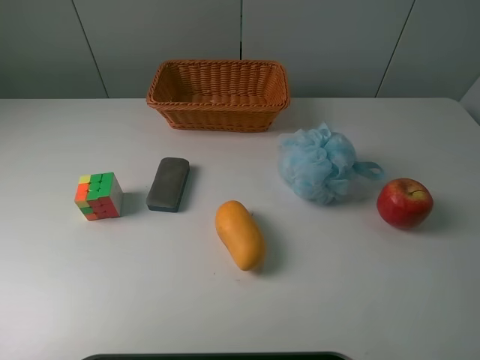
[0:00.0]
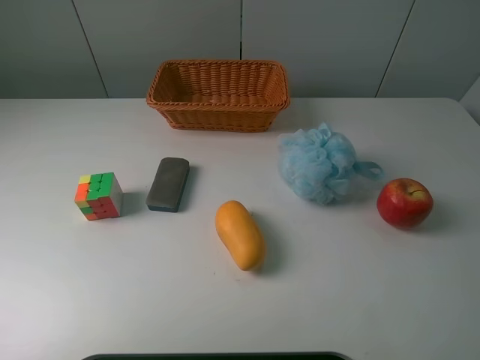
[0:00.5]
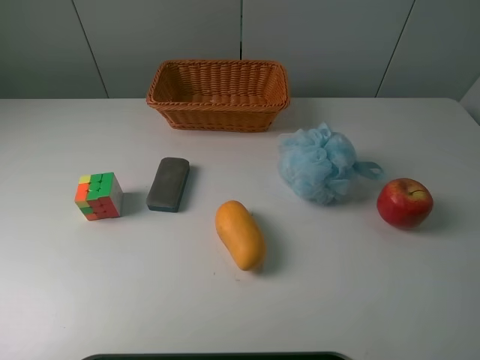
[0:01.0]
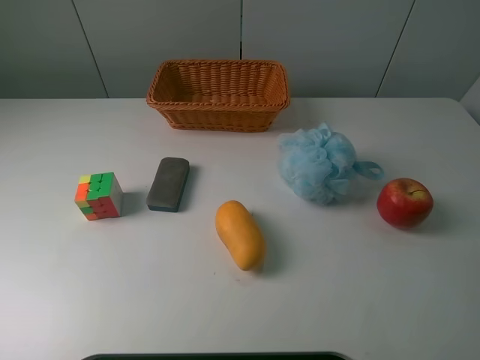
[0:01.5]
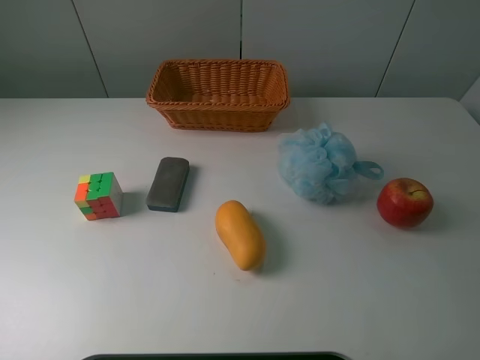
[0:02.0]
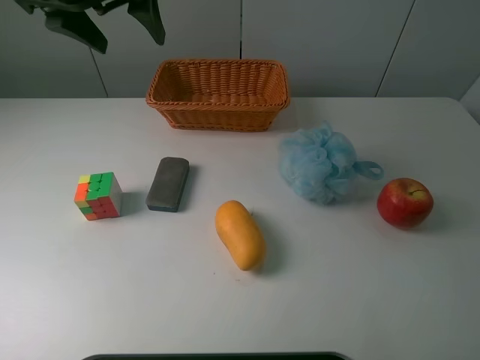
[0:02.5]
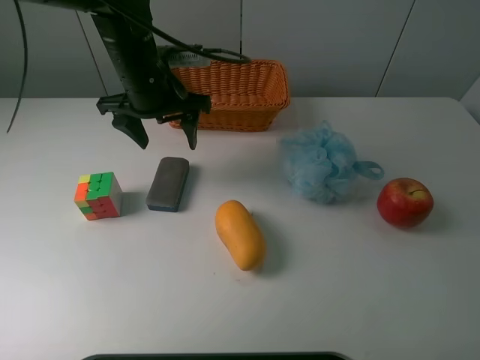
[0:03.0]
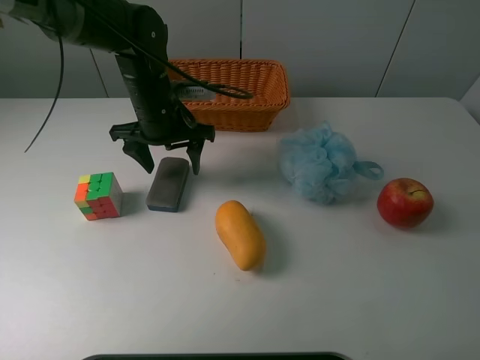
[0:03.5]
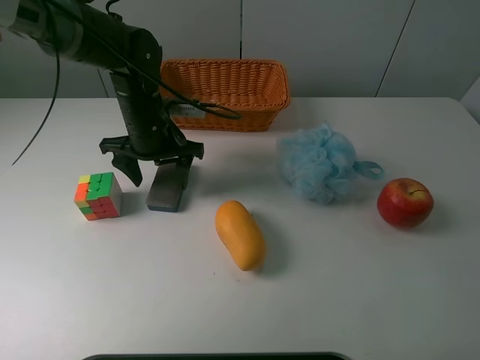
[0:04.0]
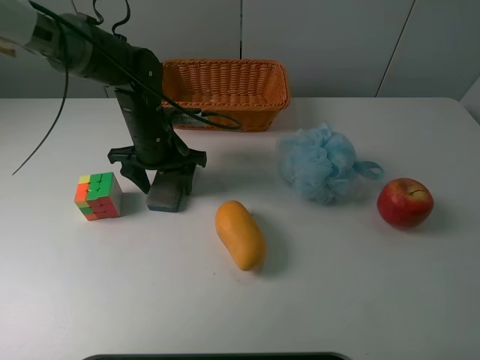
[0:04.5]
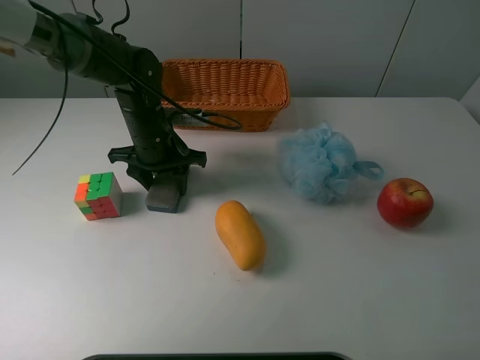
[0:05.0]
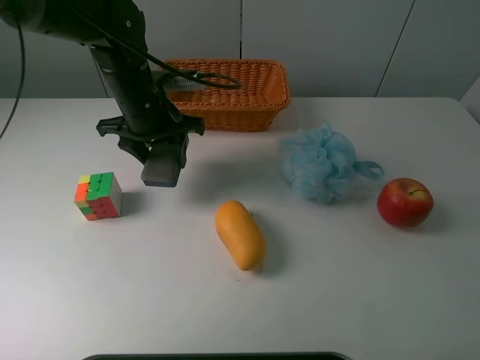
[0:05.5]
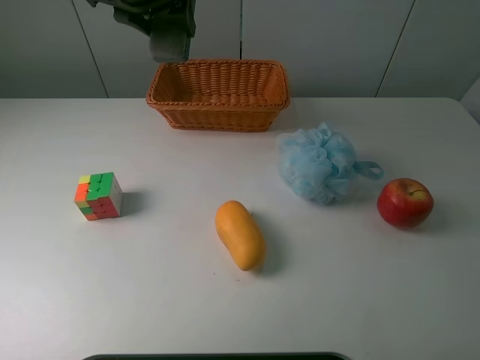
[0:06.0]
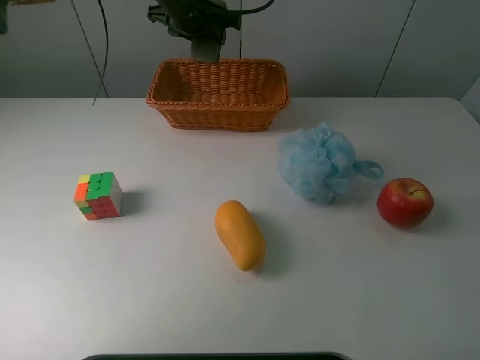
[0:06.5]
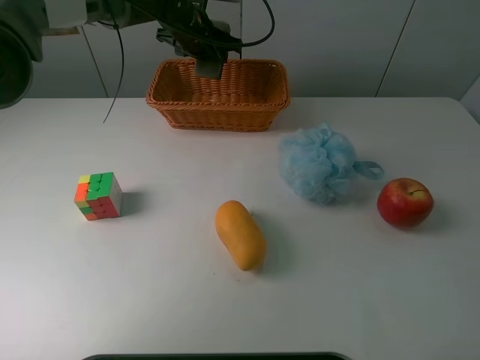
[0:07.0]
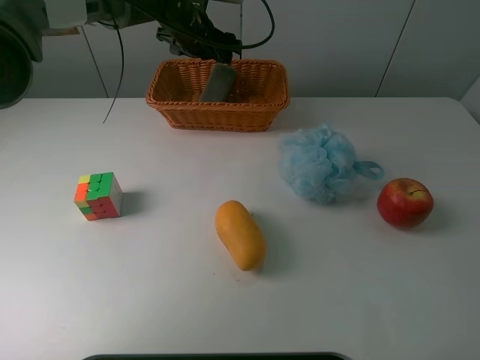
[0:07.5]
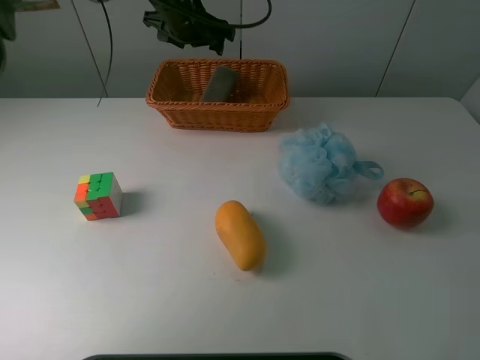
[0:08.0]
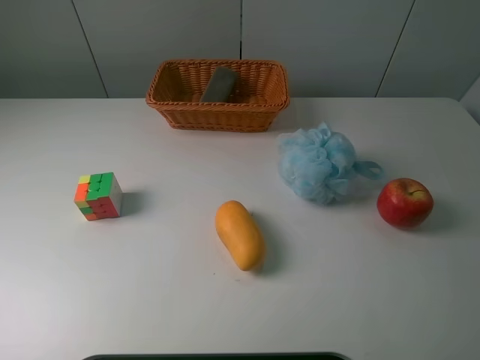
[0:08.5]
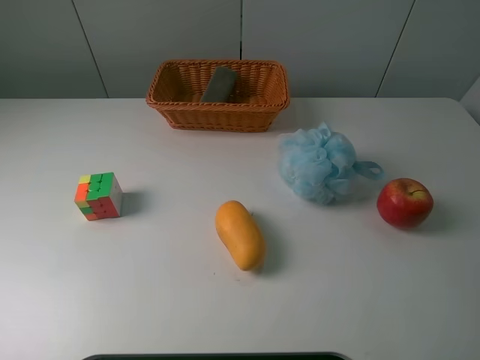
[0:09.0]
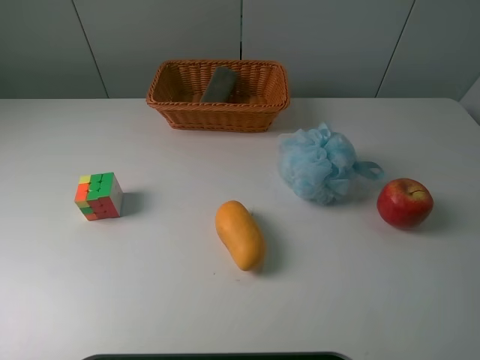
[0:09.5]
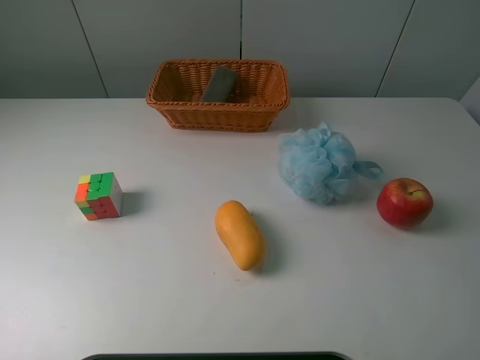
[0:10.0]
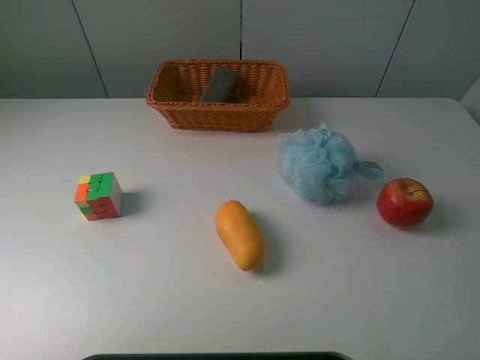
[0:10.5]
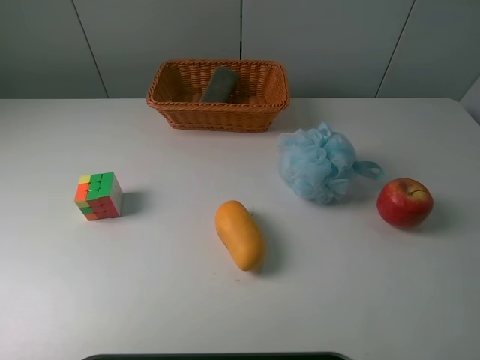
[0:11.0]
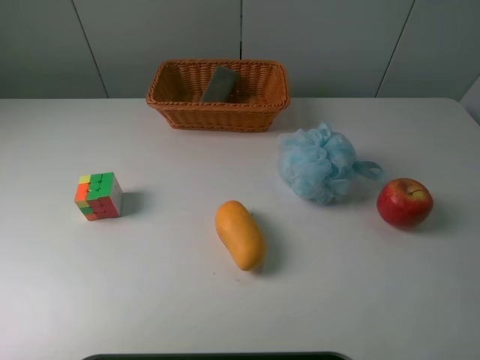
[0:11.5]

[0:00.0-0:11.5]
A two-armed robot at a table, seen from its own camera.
Task of the whole recording: use a picker to grab the item closest to the cube and place it in the basket.
Step, 0:00.0 to 0:04.5: Grasp the blackboard erasure with the left gripper.
Step, 0:05.0 to 0:07.0: Place the blackboard erasure into the basket with the left gripper.
0:02.0 to 0:04.0: The left gripper shifts approximately 35 cm downward and to the right.
0:04.0 to 0:06.0: The left gripper moves upward, about 20 cm, and closes up.
0:06.0 to 0:07.5: The left gripper goes about 15 cm downward and forward, and opens its fingers.
0:07.5 to 0:09.5: The left gripper travels backward, to the left and upward by approximately 70 cm.
